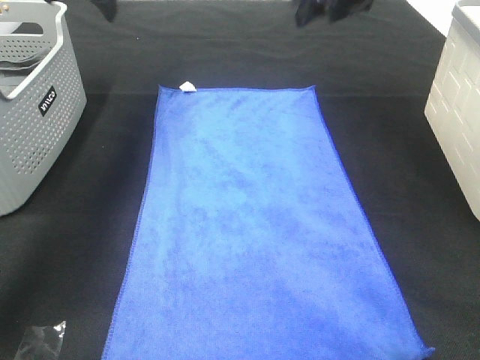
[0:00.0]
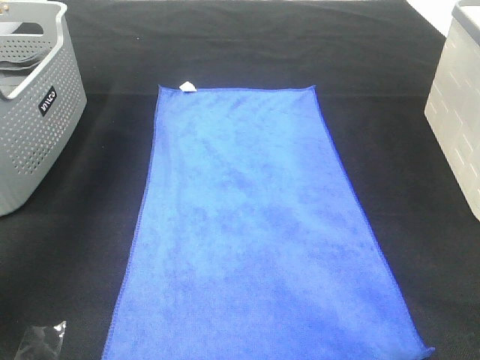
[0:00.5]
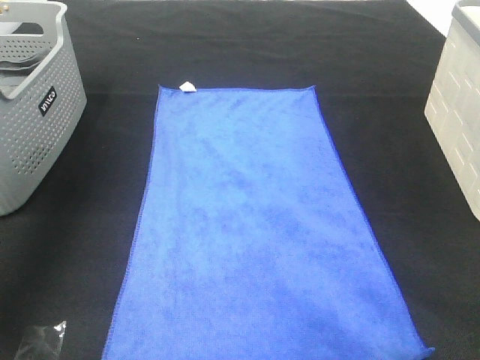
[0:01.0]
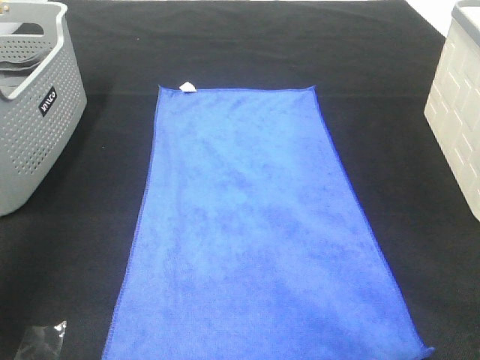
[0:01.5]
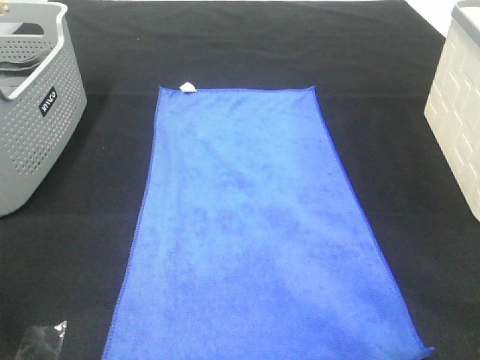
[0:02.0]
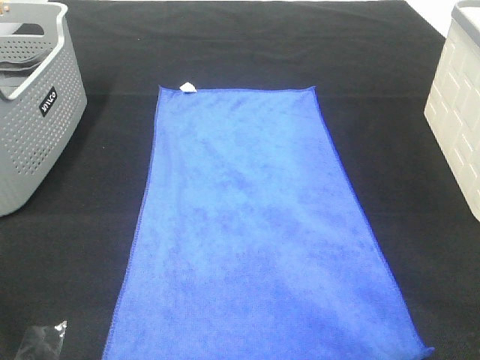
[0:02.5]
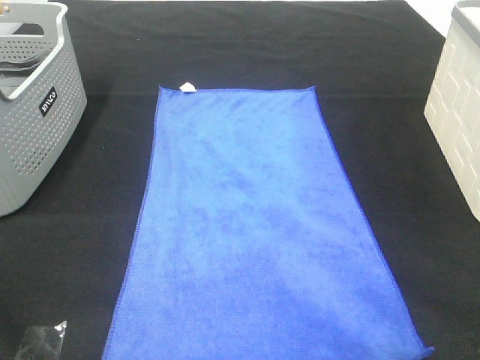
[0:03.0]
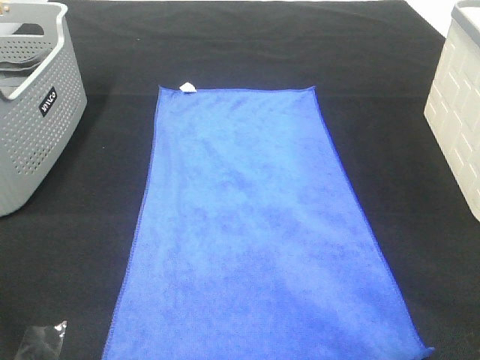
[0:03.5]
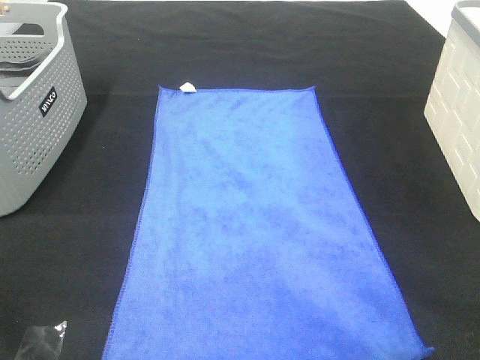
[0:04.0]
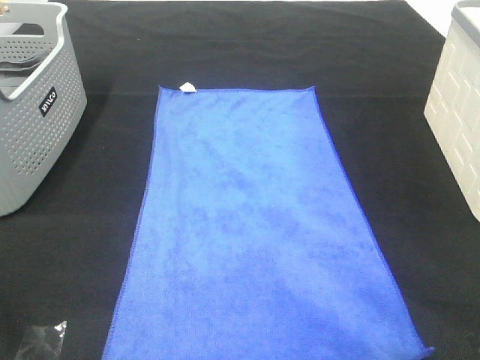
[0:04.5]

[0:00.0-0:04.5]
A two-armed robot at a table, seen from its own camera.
Task of the whole recording: Remove the towel and place it.
0:00.0 to 0:02.0: The two grippers go approximately 50 cm backward.

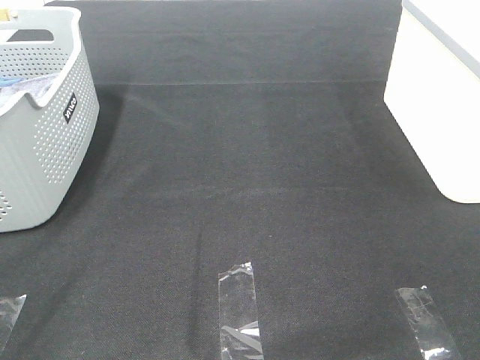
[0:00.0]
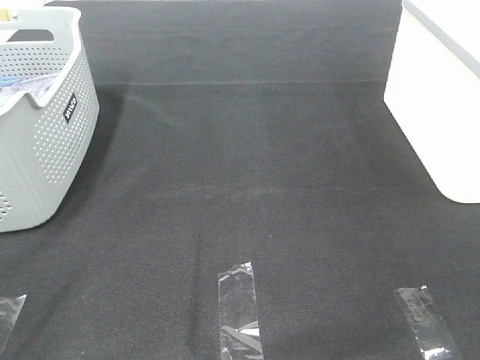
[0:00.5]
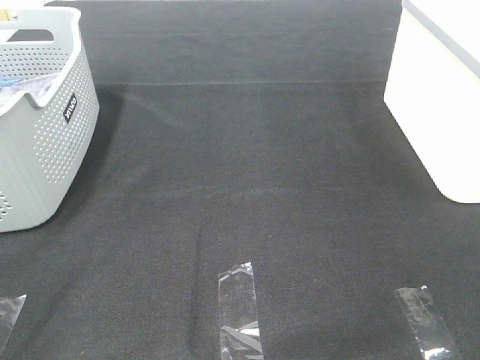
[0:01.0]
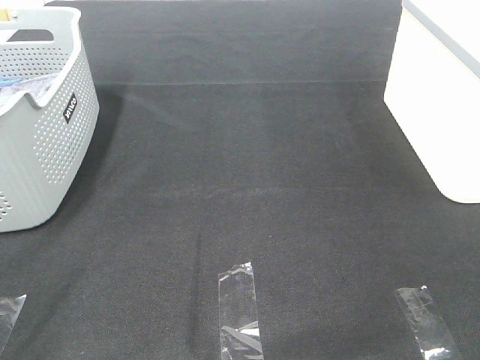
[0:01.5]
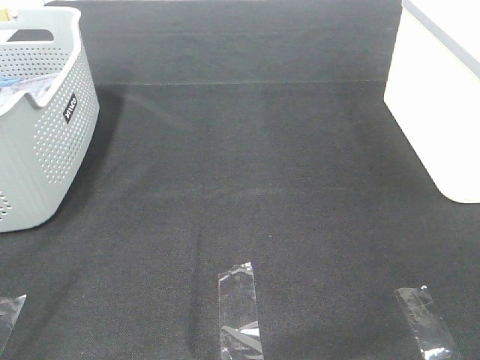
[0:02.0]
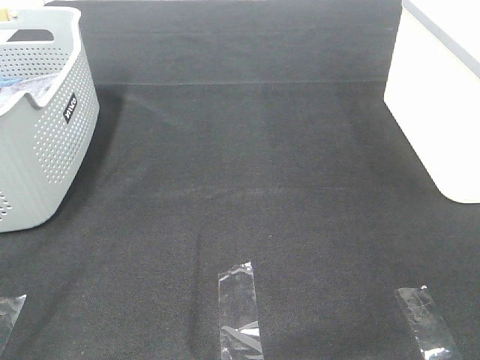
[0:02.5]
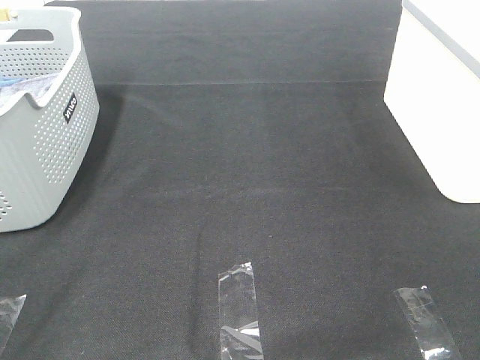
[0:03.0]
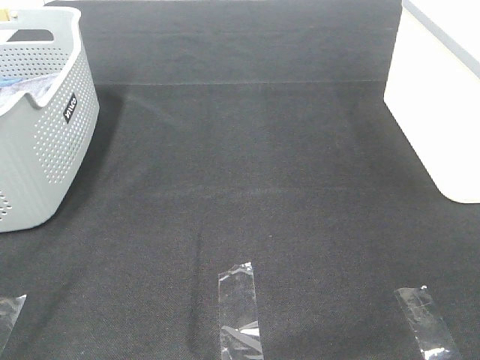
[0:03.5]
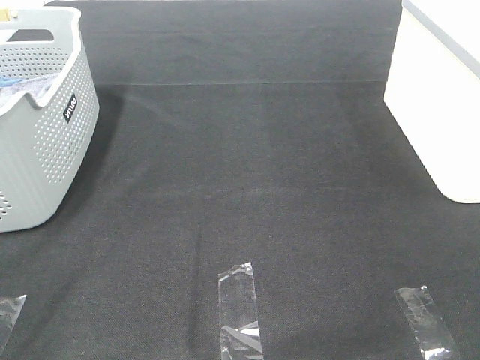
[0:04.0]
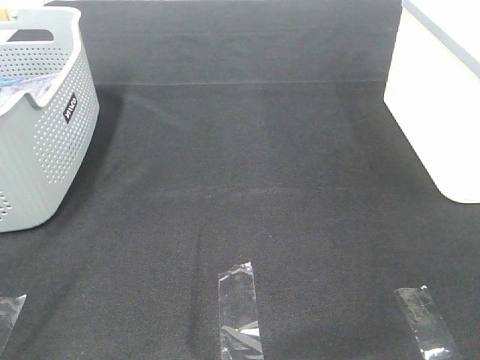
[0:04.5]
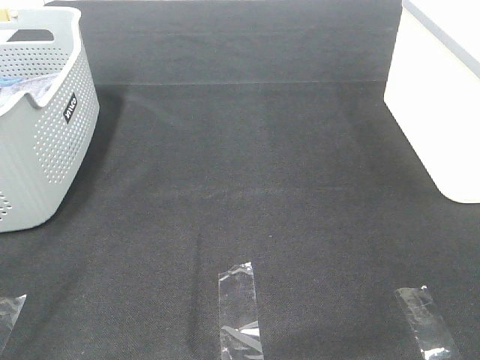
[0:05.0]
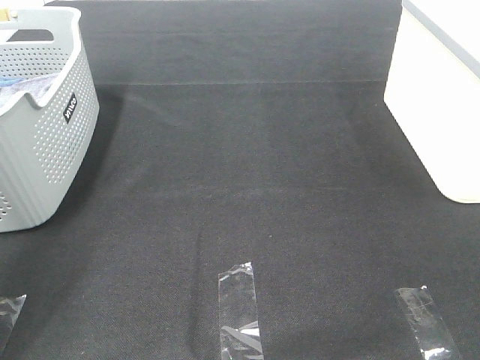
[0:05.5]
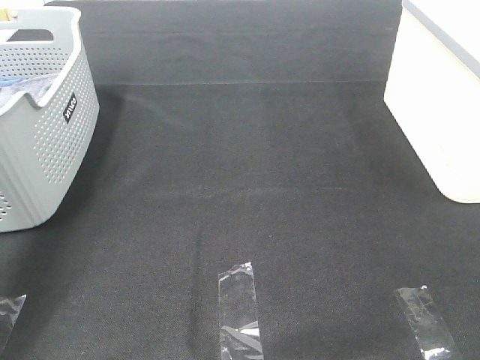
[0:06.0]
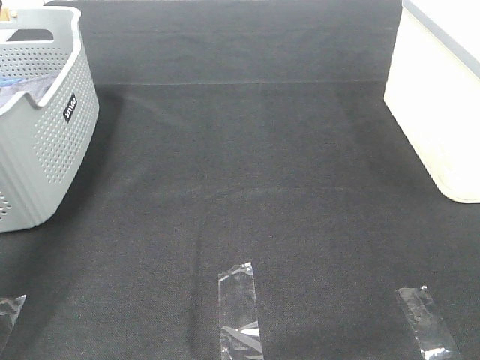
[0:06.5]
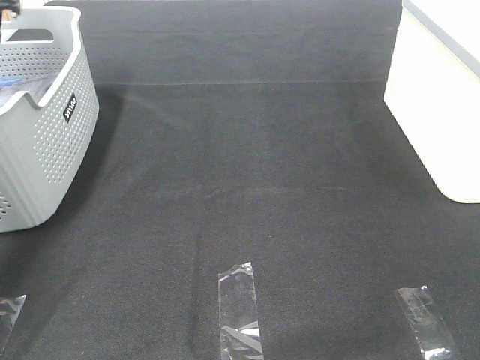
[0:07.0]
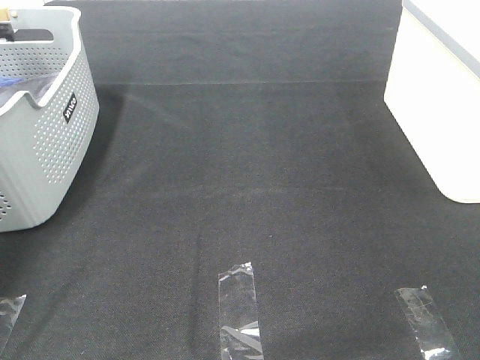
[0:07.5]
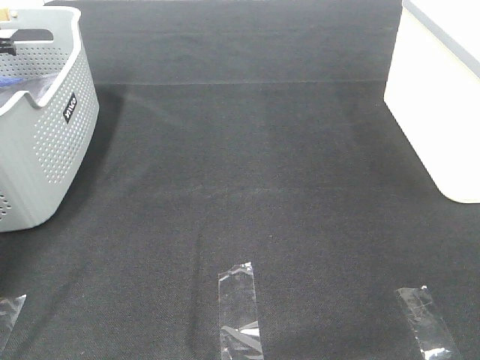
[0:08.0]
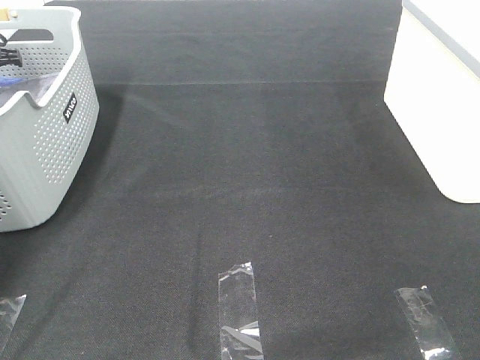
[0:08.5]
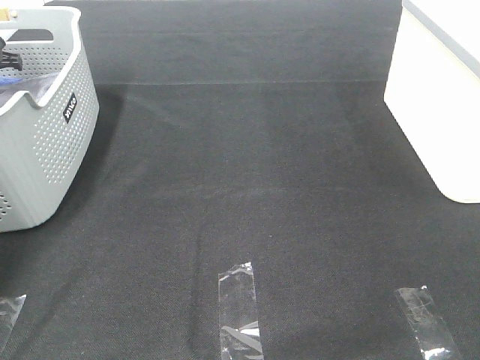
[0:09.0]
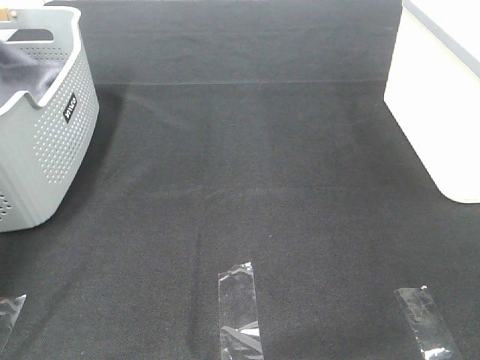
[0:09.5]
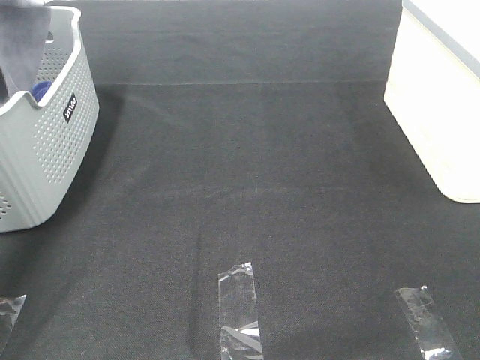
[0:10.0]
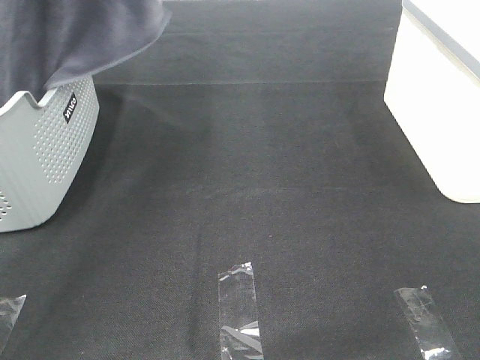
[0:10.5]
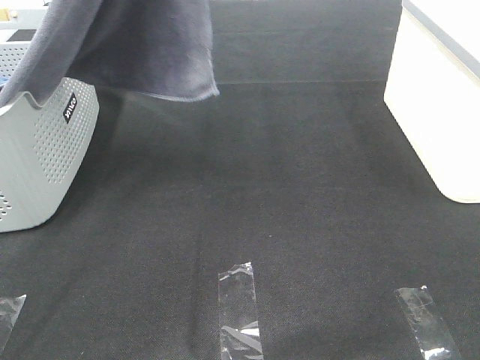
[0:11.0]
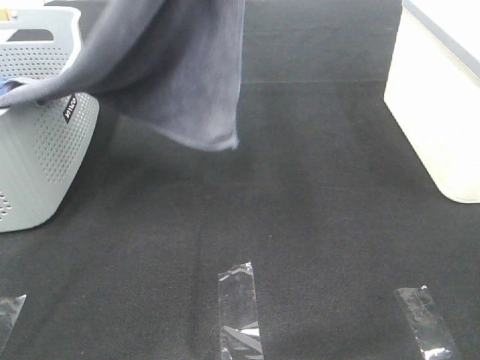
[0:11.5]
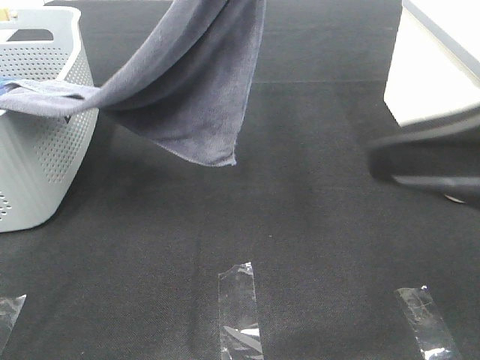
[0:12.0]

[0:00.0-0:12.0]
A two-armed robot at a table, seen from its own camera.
Task of the whole recording: Remove the towel and place it.
0:00.0 to 0:04.0: Neither gripper changes place.
0:04.0 to 0:06.0: The left gripper moves forward, roughly 30 cm.
0:06.0 to 0:08.0: The left gripper goes roughly 30 cm forward, downward and to the left.
0:08.0 to 0:10.0: The left gripper goes approximately 20 cm upward, and closes its fingers.
0:10.0 to 0:12.0: The right gripper goes some 15 cm forward and to the left; the left gripper moves to the right and backward, roughly 30 cm.

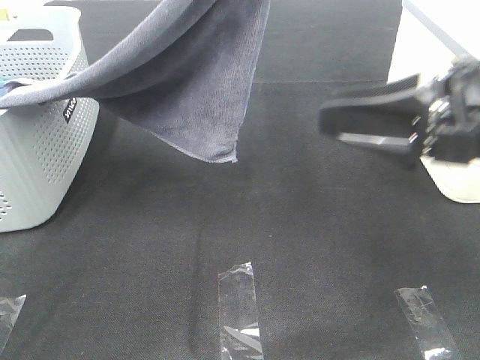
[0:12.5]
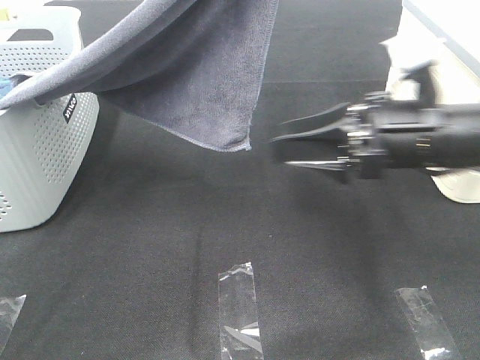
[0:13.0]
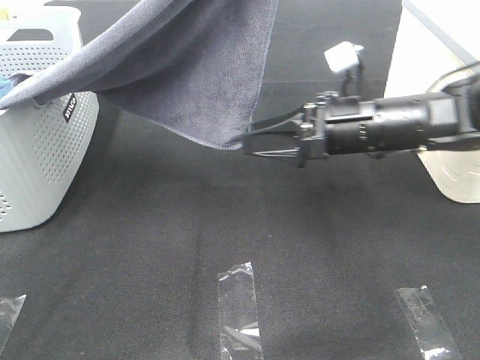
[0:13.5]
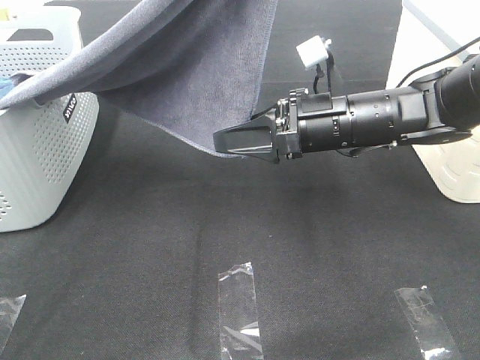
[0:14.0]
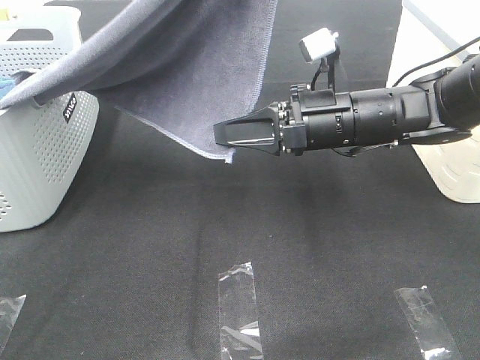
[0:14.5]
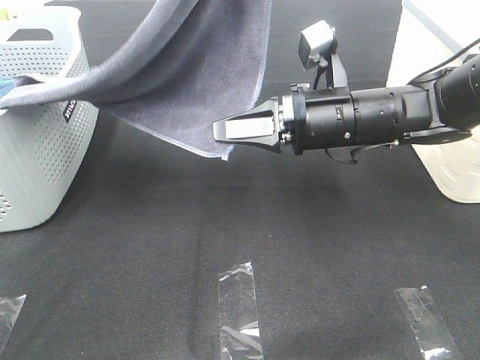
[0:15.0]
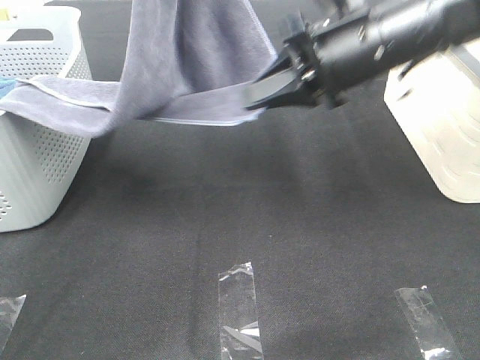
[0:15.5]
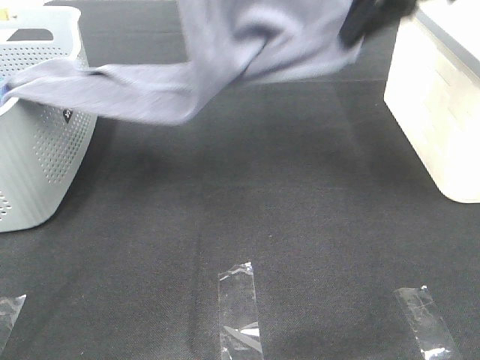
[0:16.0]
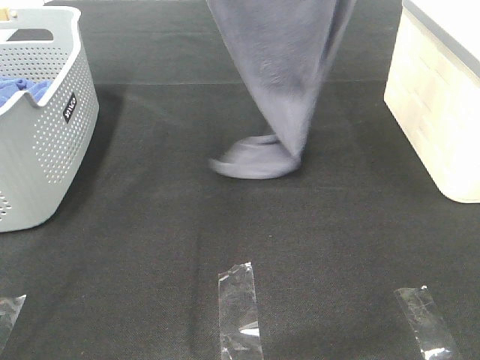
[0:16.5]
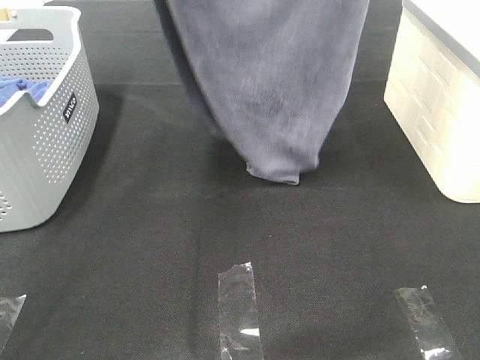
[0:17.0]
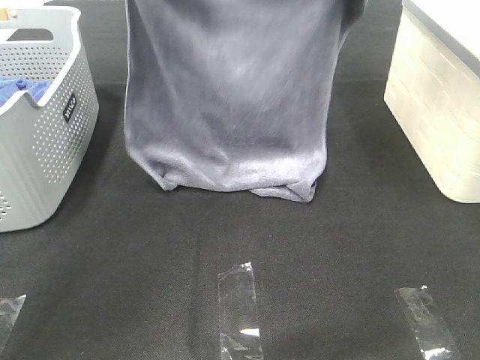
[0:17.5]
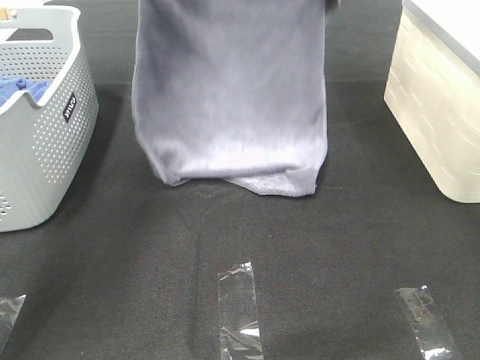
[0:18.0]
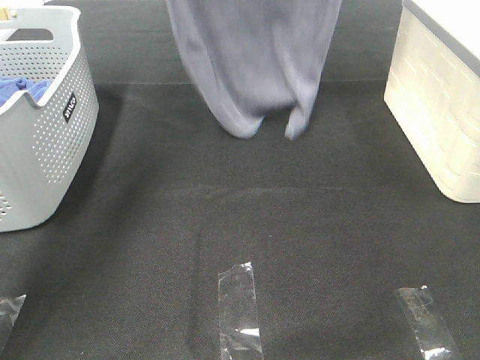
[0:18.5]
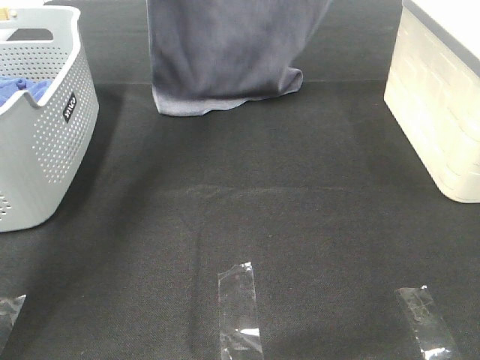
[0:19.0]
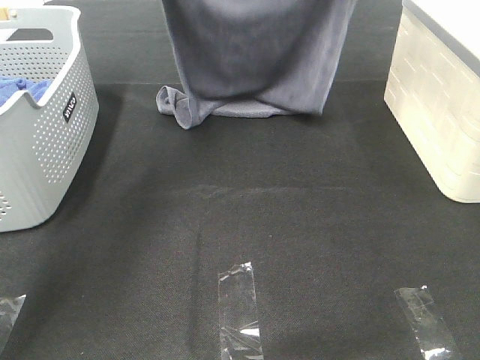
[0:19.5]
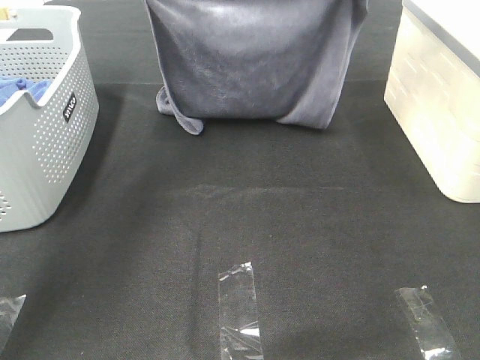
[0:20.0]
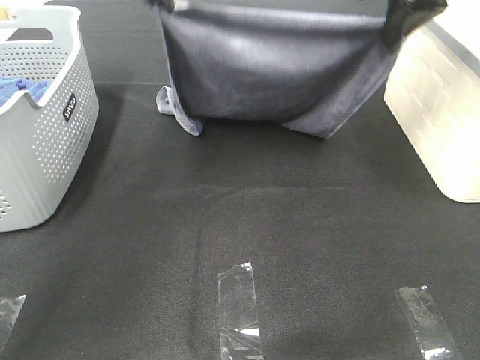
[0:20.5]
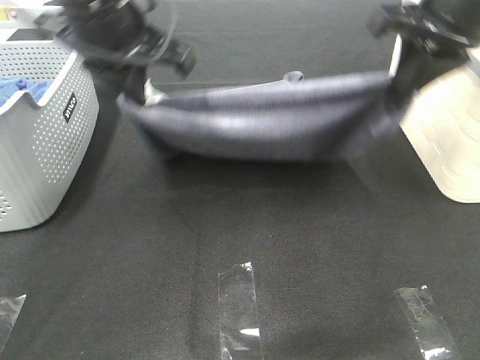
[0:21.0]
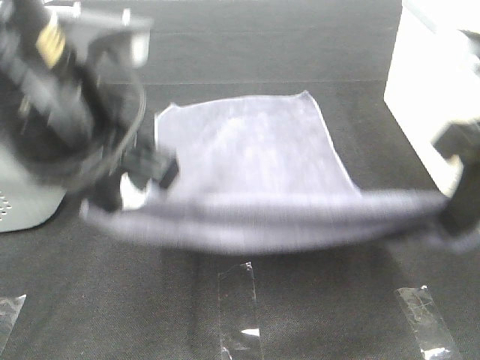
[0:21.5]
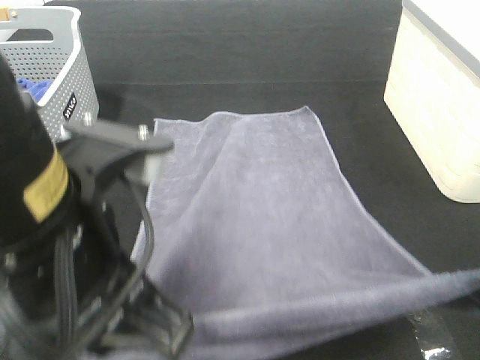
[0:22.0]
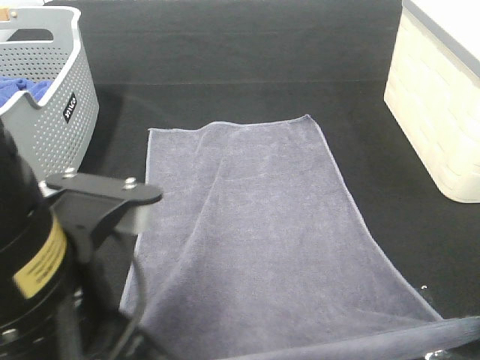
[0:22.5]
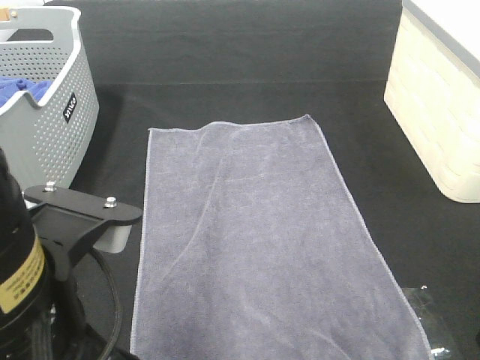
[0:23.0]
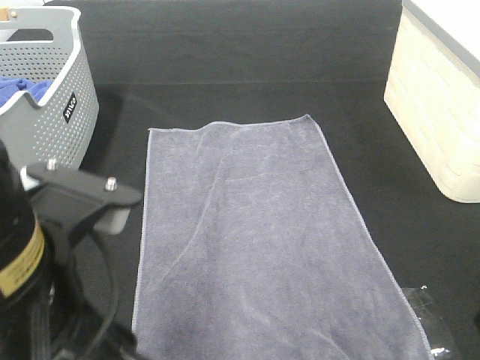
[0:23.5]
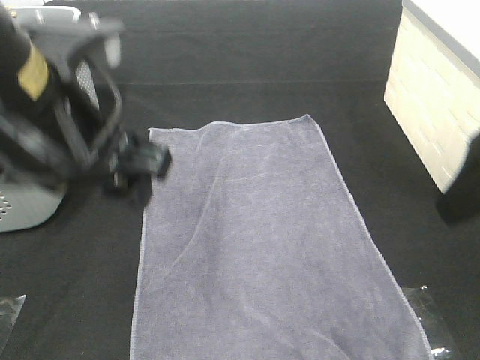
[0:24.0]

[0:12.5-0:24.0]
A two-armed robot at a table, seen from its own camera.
Task of the whole recording: Remove the towel and place it.
Step, 0:14.0 to 0:18.5: Left hand: spread the grey towel flat on the table.
Step, 0:14.0 to 0:18.5: Right hand: spread the grey towel flat on the table.
0:12.5 to 0:14.5: The right gripper travels forward, to the left and downward by roughly 15 cm, and closes its fingers.
0:14.5 to 0:16.5: The left gripper travels upward and to the left by roughly 10 cm, while the right gripper travels upward by about 35 cm.
0:16.5 to 0:18.5: Both grippers travel together forward, some 15 cm. The left gripper travels downward and back again, approximately 20 cm each way, while the right gripper reaches some 20 cm downward, then returns.
0:18.5 to 0:20.0: The two grippers go some 15 cm downward.
0:20.0 to 0:22.0: Both grippers move backward, some 35 cm.
0:22.0 to 0:24.0: The two grippers go some 10 cm forward. The right gripper opens up, while the left gripper opens up.
